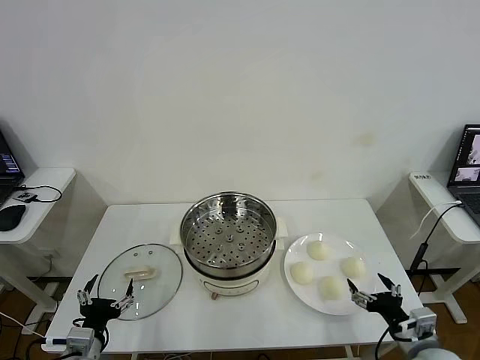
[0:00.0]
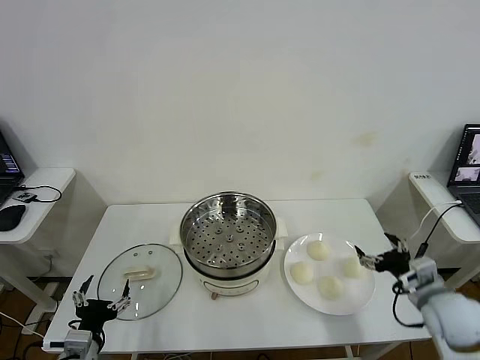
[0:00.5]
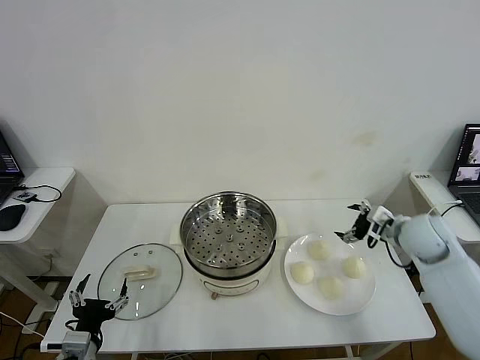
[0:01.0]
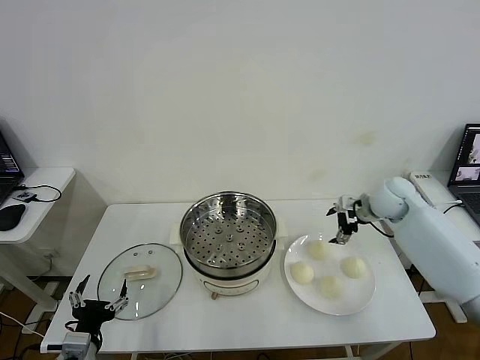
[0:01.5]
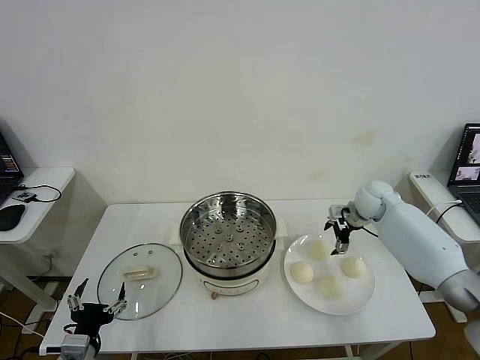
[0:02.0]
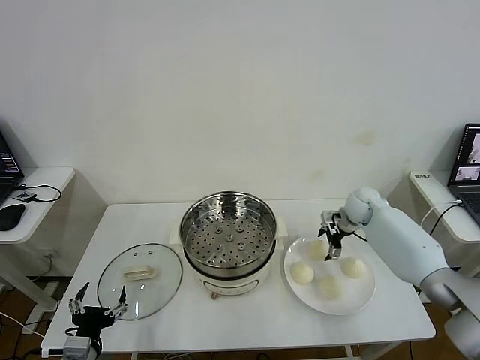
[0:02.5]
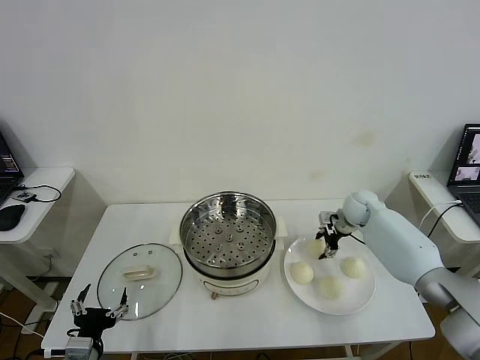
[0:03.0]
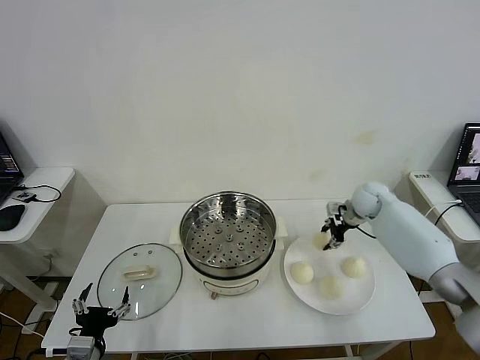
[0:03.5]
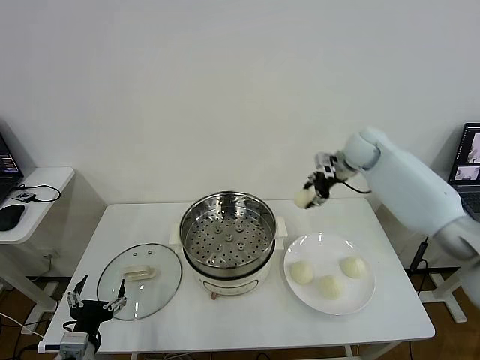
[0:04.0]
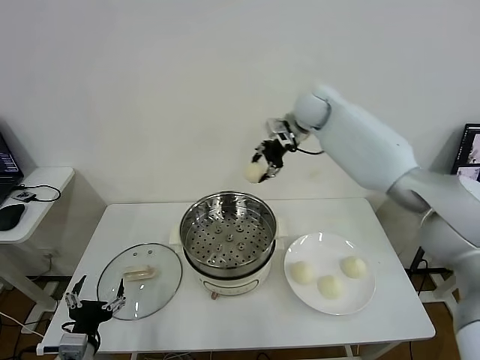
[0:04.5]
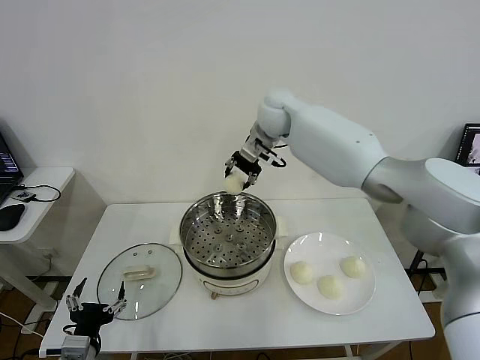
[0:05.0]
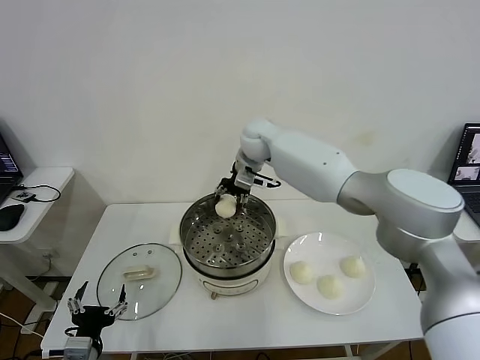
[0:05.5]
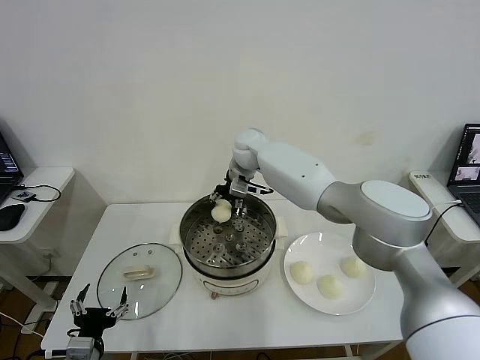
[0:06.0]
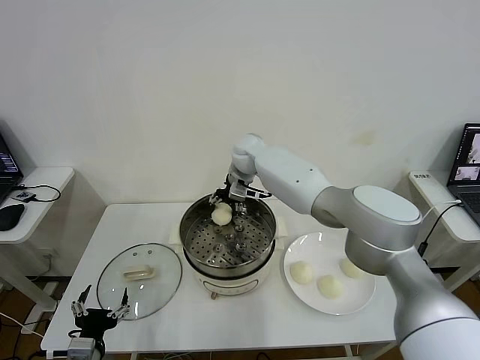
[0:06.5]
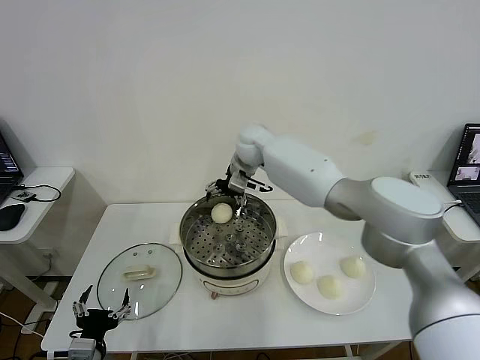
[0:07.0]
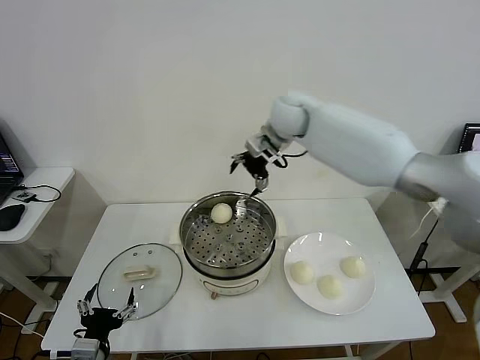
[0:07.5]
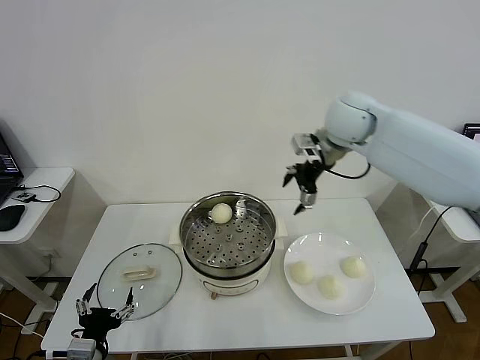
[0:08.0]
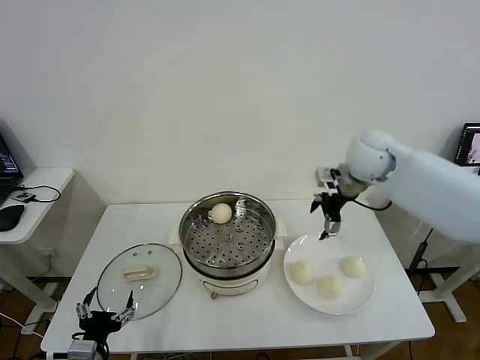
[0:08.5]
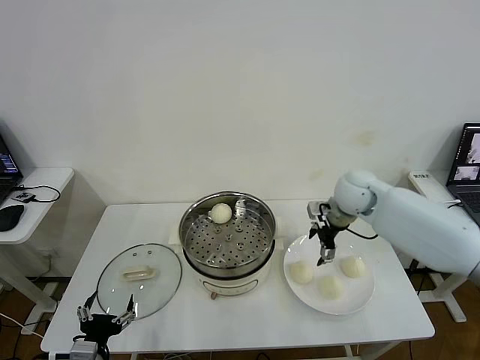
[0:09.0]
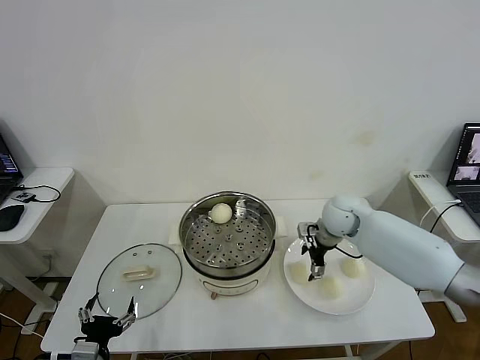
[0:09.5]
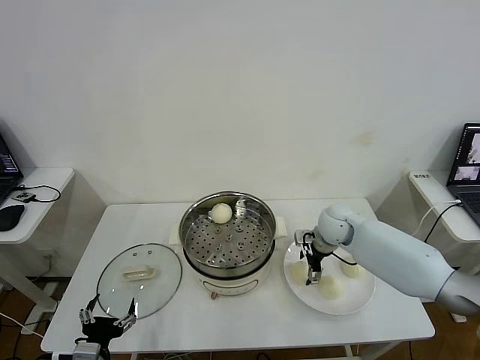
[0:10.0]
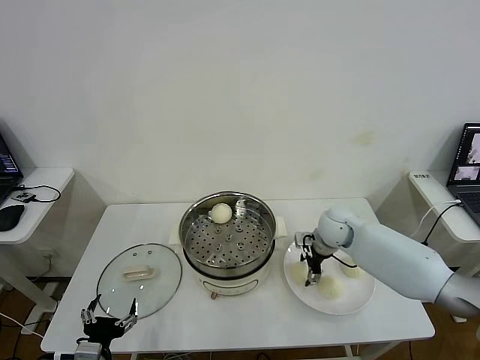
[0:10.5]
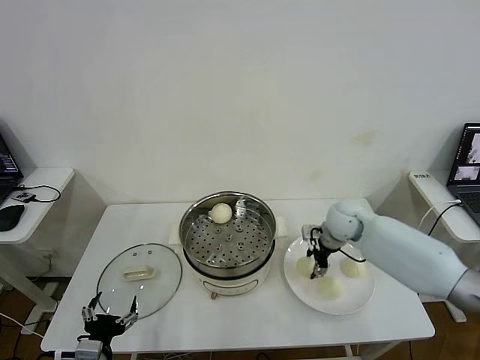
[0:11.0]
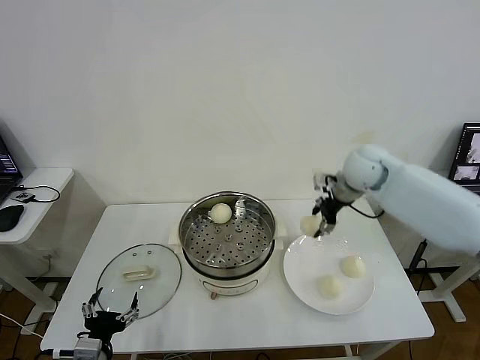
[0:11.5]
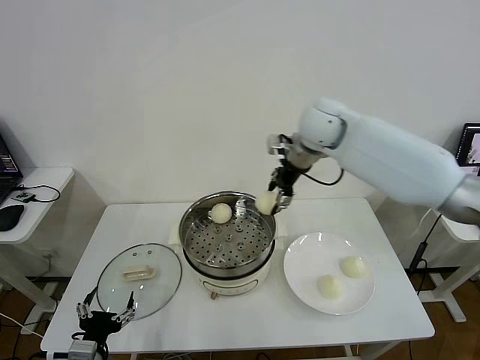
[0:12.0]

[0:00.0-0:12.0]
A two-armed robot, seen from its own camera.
Step, 0:00.0 to 0:03.0: Grasp the baozi in the plate with right gripper.
Step, 0:03.5 to 0:06.5: Place the baozi on the steamer with right gripper.
Step, 0:07.0 to 0:10.5: Grasp the baozi in the plate with right gripper.
0:02.0 to 0:04.0: The right gripper shifts about 20 cm upward and to the left, and closes up.
0:04.0 to 0:06.0: The right gripper goes approximately 25 cm to the left.
0:06.0 to 0:08.0: The right gripper is displaced to the right, upward and backward by roughly 25 cm, and opens up.
0:08.0 to 0:10.0: The right gripper travels downward by approximately 25 cm.
0:10.0 to 0:12.0: The right gripper moves upward and to the left, roughly 25 cm, and closes.

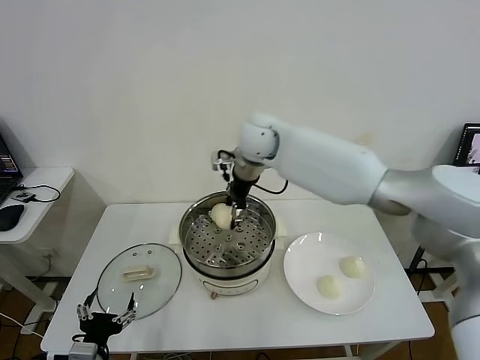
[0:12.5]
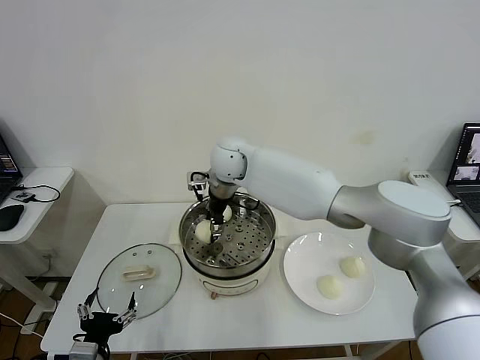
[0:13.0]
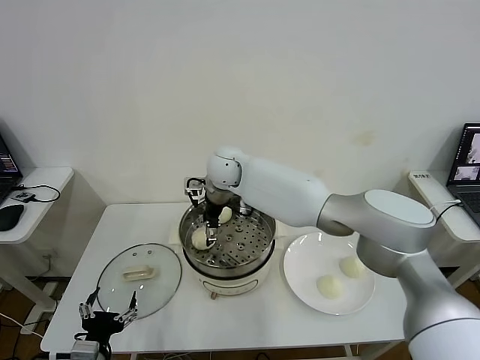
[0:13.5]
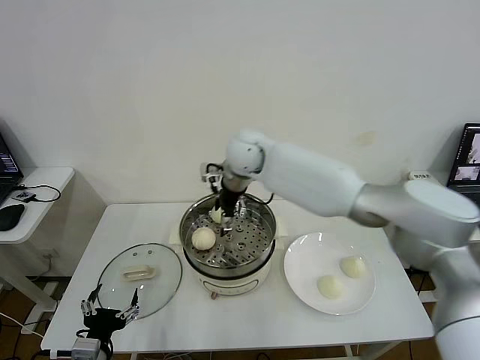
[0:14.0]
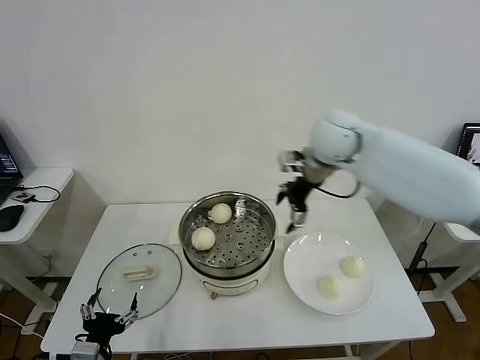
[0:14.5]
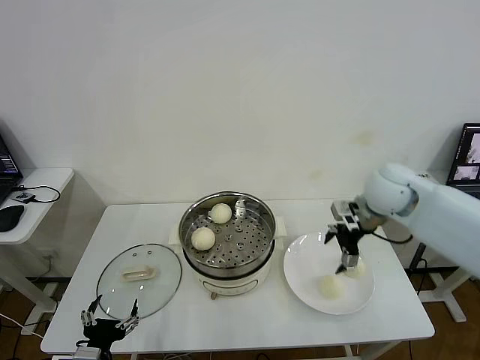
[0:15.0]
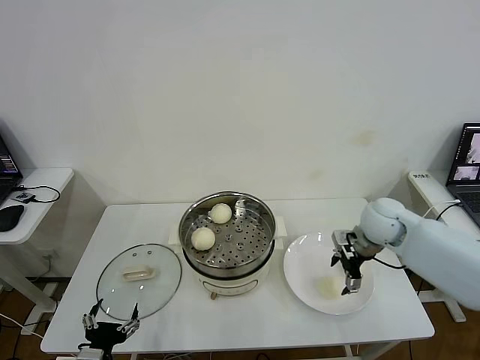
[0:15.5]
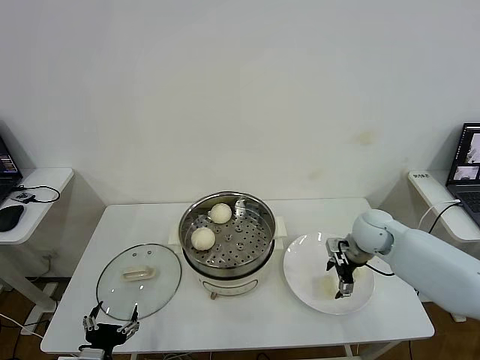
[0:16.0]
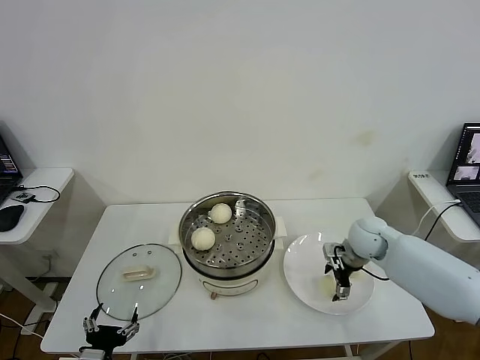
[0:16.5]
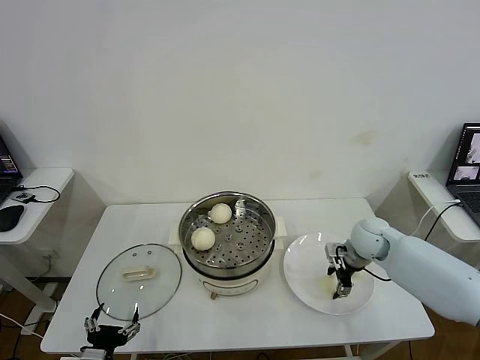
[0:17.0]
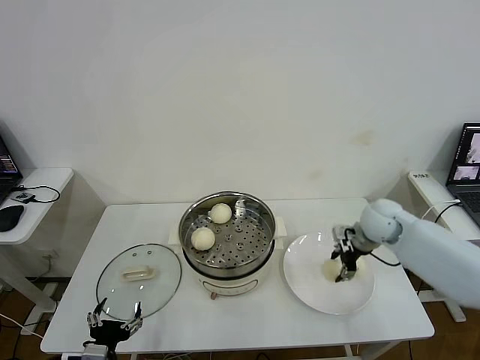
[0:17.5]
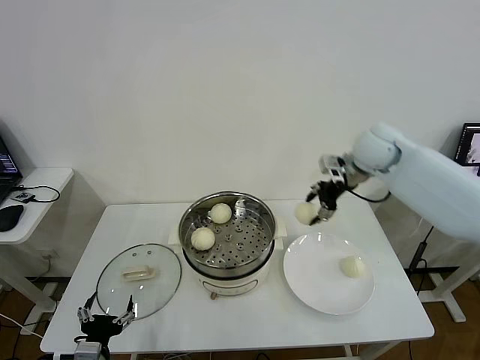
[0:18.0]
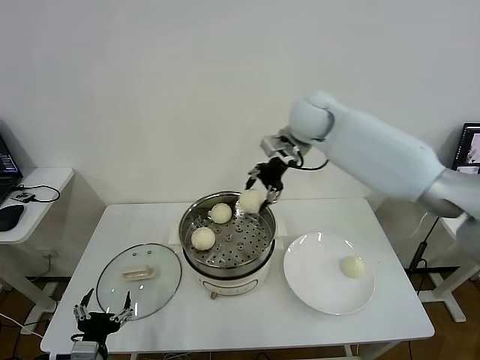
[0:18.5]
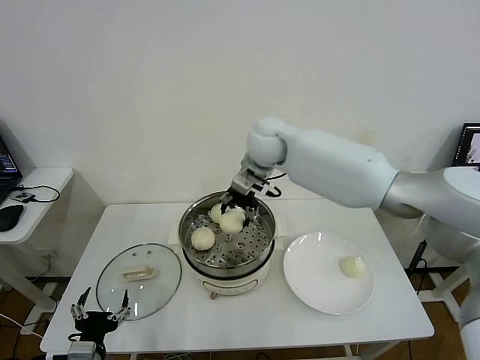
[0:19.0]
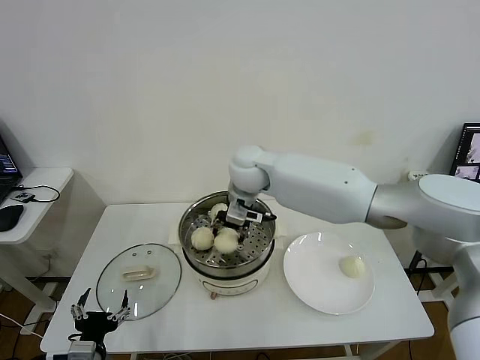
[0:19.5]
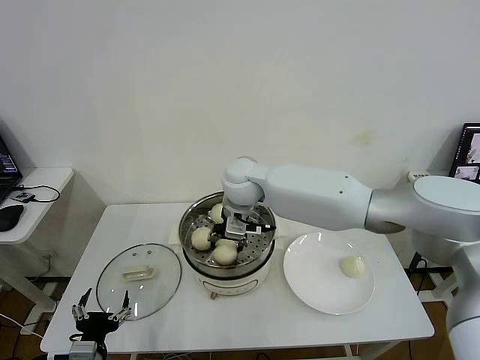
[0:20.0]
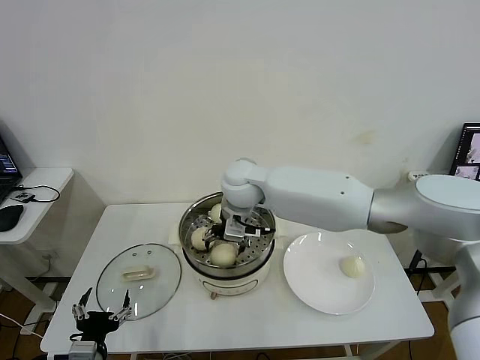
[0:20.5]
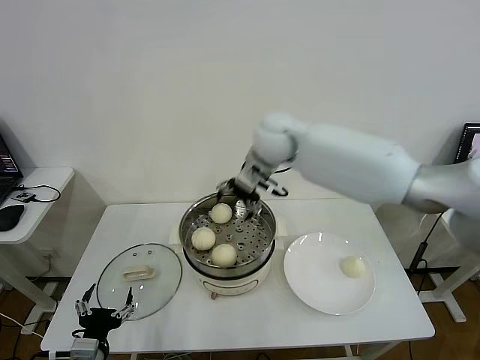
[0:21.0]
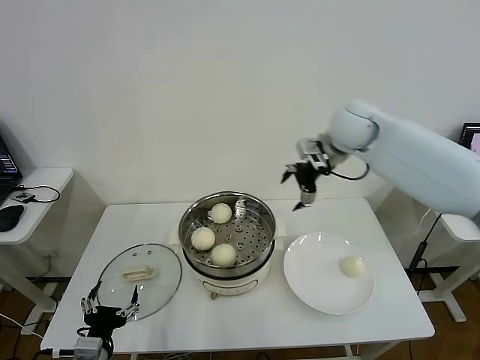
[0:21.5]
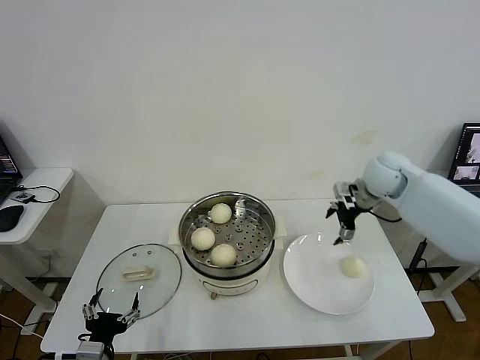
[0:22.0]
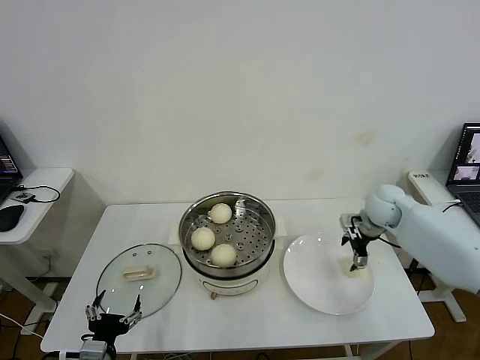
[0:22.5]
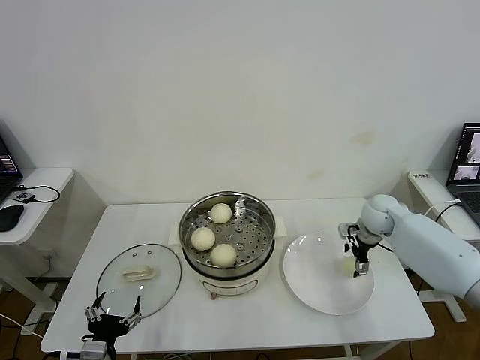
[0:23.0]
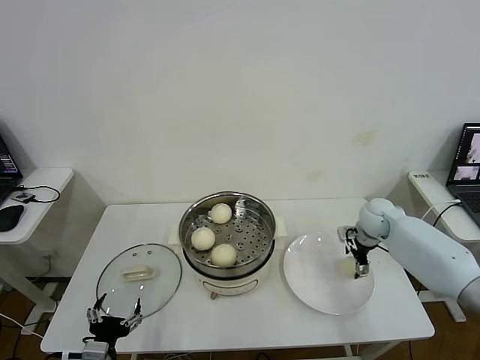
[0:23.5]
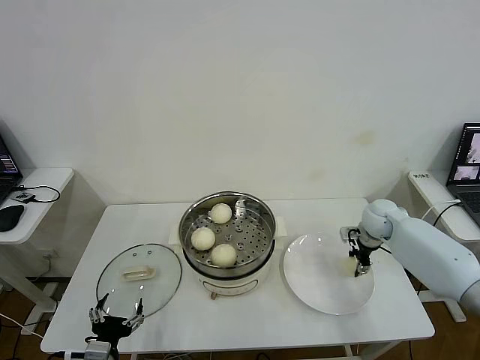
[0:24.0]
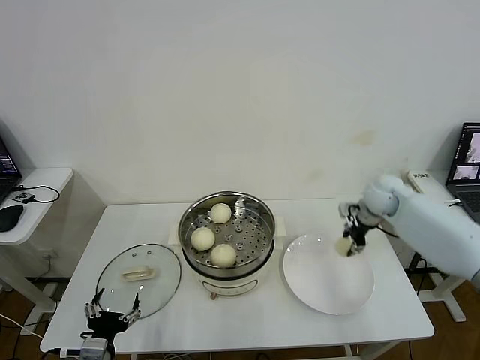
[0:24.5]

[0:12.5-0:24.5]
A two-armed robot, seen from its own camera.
Step, 0:14.0 to 0:17.0: Grasp the baozi in the plate with right gripper.
Step, 0:17.5 to 0:20.5: Place the baozi on the steamer with right gripper.
Step, 0:21.0 to 0:24.0: Grasp the baozi in the plate with right gripper.
0:12.5 to 0:14.5: The right gripper travels to the right by about 20 cm, and opens up.
0:14.5 to 0:16.5: The right gripper goes about 25 cm downward and to the right.
0:16.5 to 0:18.5: The right gripper is displaced upward, to the left and forward by approximately 35 cm, and closes.
0:18.5 to 0:20.5: The right gripper shifts about 20 cm to the left, downward and backward, and opens.
0:20.5 to 0:22.5: The right gripper heads to the right, covering roughly 35 cm.
0:22.5 to 0:24.5: The right gripper closes its fingers.

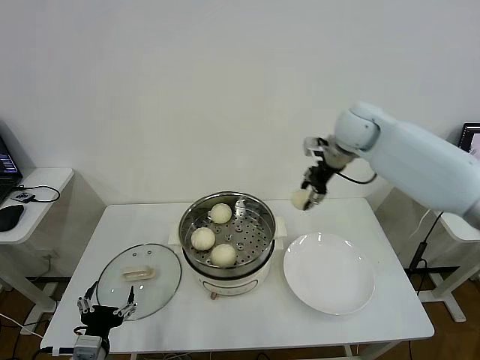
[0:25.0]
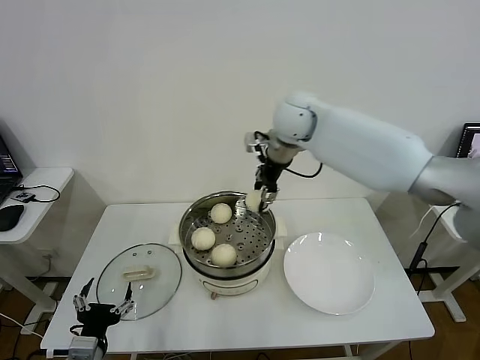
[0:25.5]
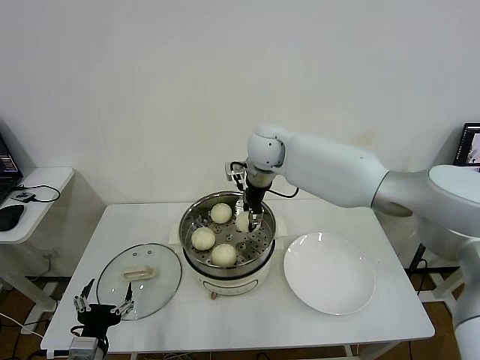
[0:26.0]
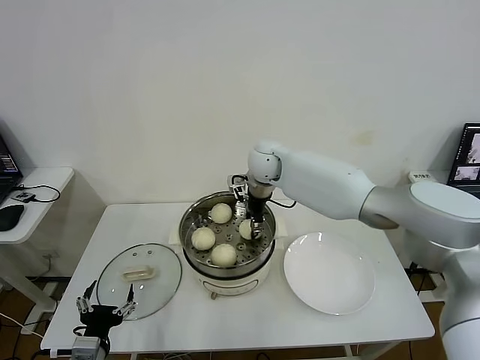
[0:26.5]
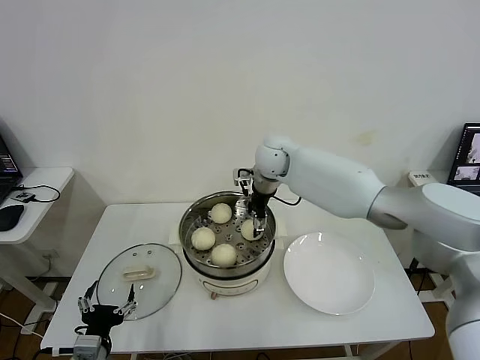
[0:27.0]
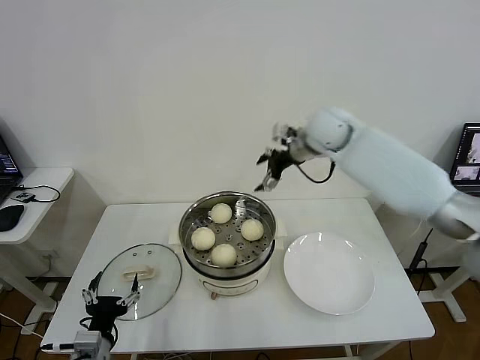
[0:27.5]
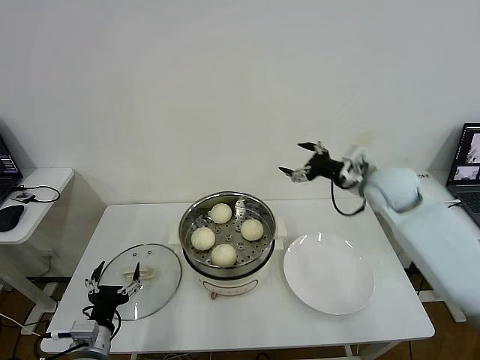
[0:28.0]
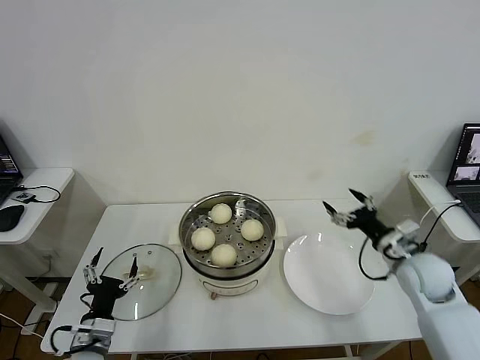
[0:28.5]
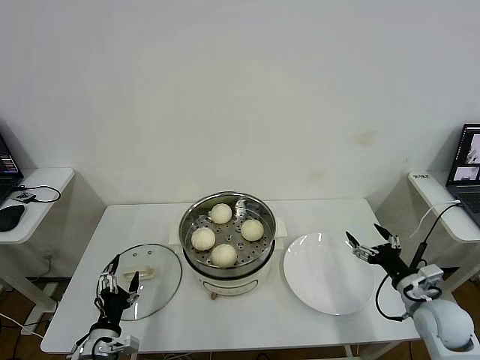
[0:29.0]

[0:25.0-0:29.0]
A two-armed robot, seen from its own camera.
Step, 0:25.0 to 0:27.0: Place the baozi on the steamer with right gripper.
0:25.0 to 0:27.0: The right gripper heads to the left and downward, covering roughly 20 cm, and opens.
0:27.0 to 0:29.0: The left gripper goes roughly 5 cm downward. The right gripper moves to the right, backward and downward, about 50 cm.
